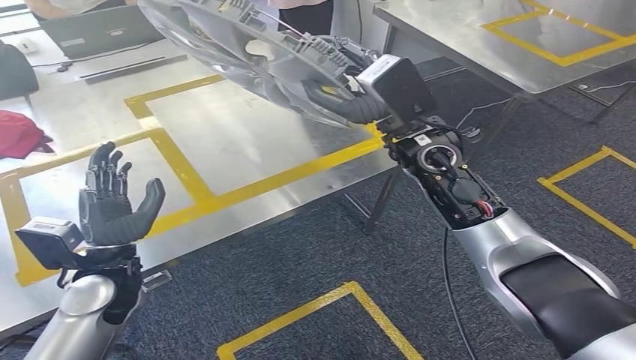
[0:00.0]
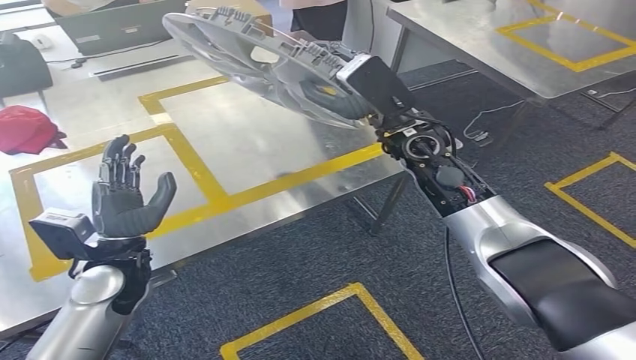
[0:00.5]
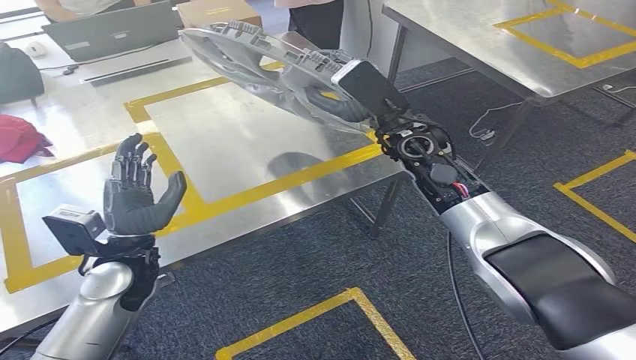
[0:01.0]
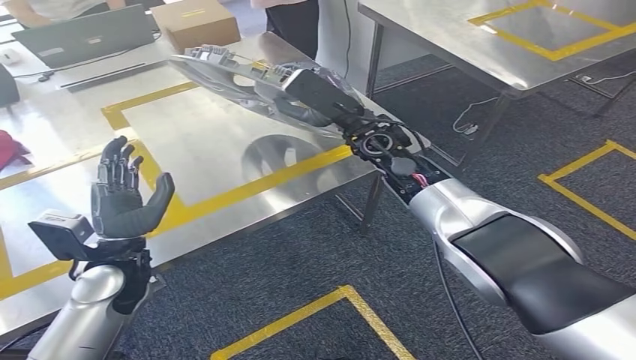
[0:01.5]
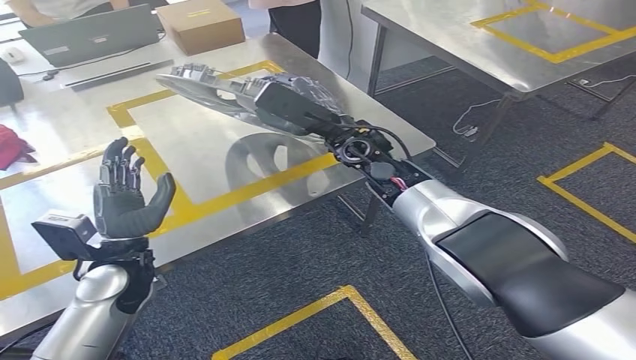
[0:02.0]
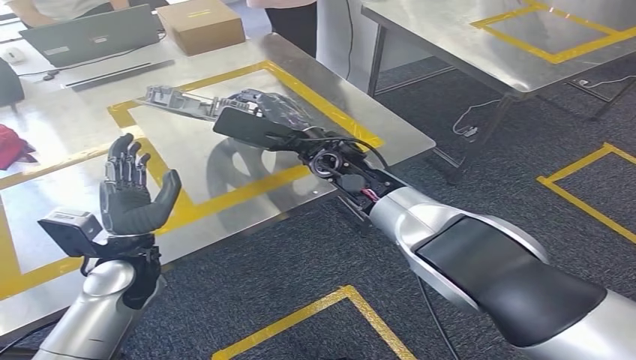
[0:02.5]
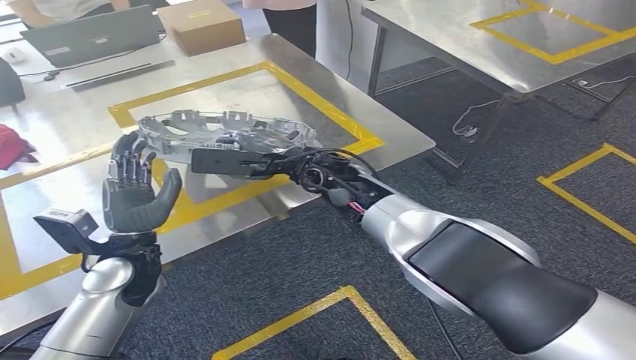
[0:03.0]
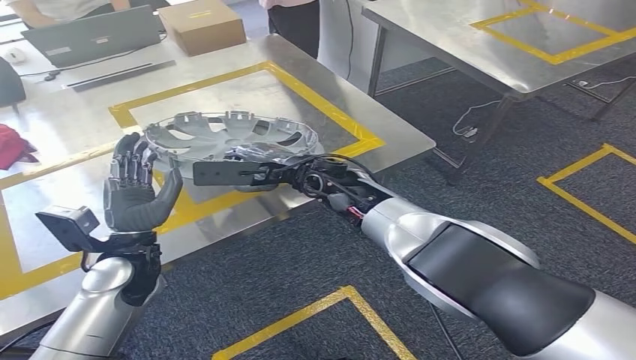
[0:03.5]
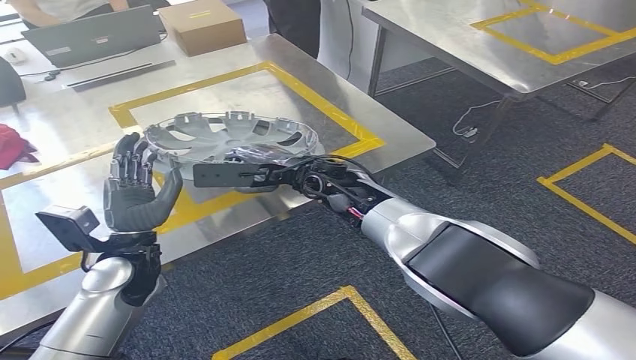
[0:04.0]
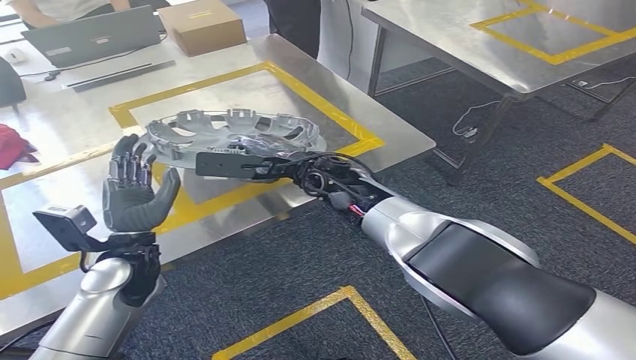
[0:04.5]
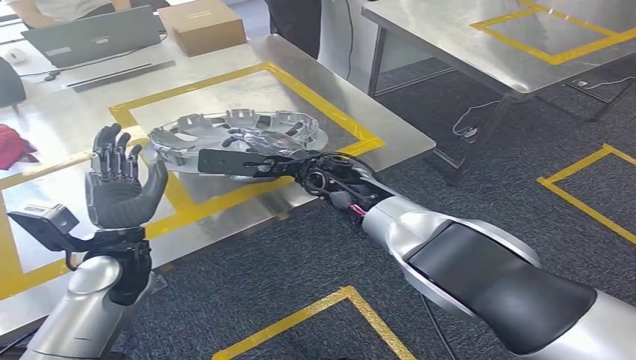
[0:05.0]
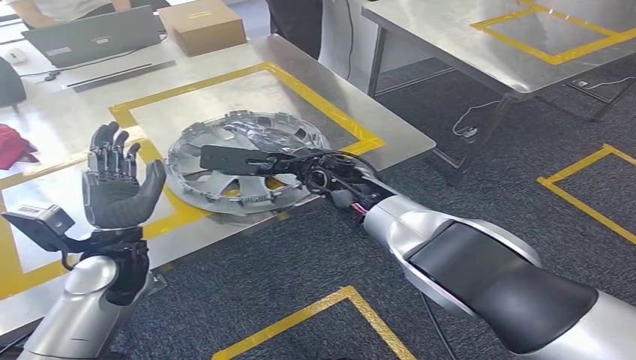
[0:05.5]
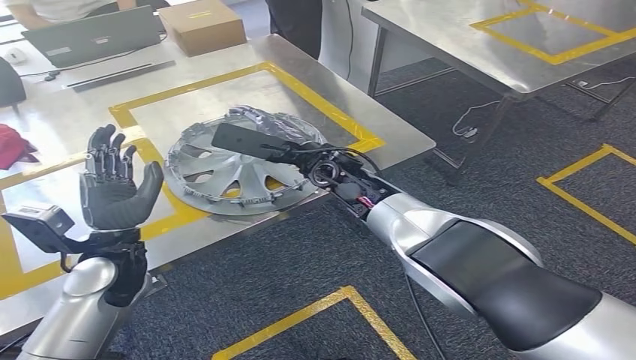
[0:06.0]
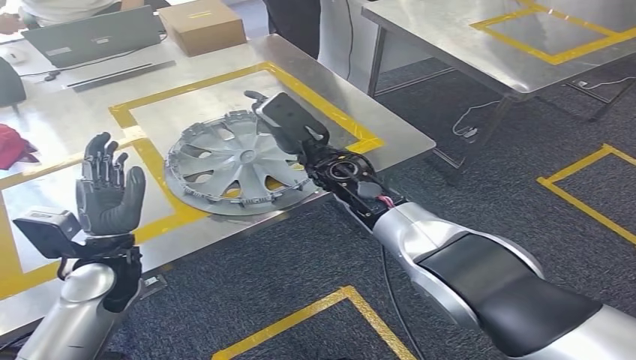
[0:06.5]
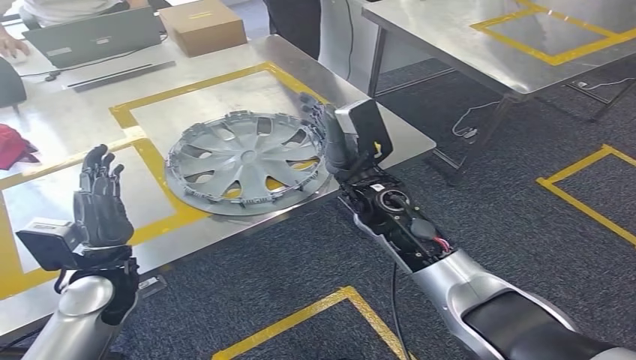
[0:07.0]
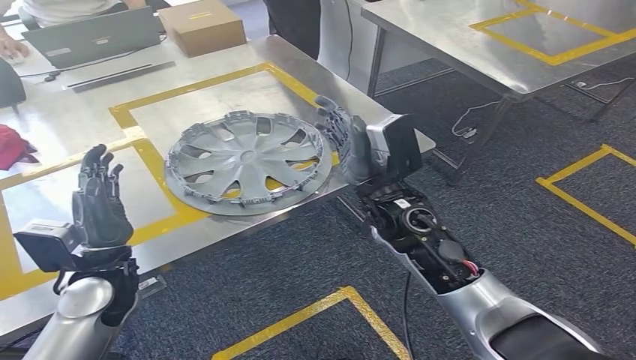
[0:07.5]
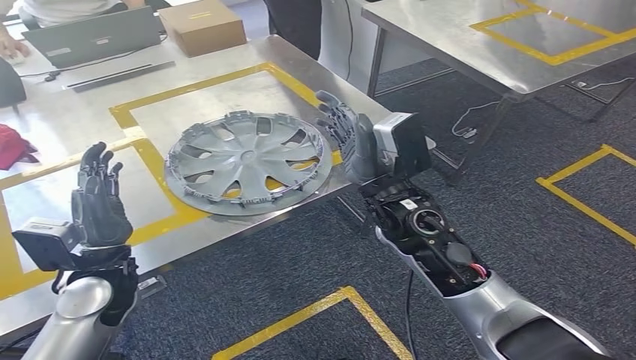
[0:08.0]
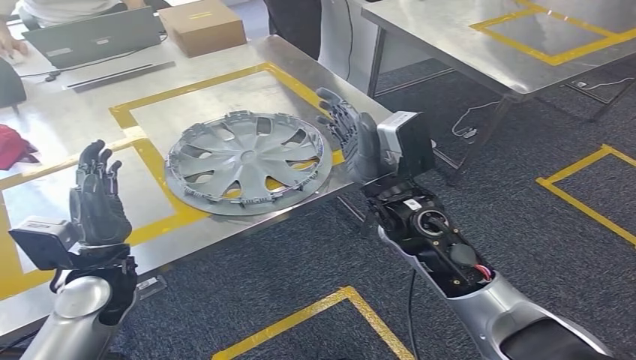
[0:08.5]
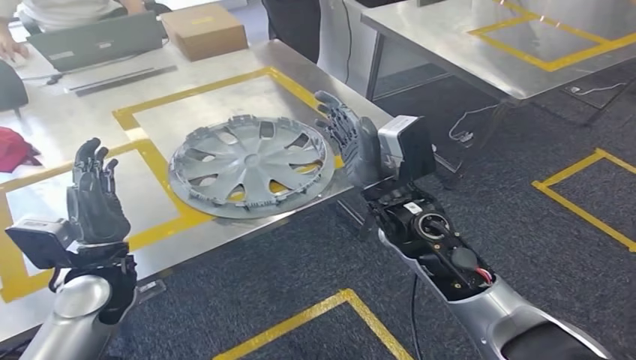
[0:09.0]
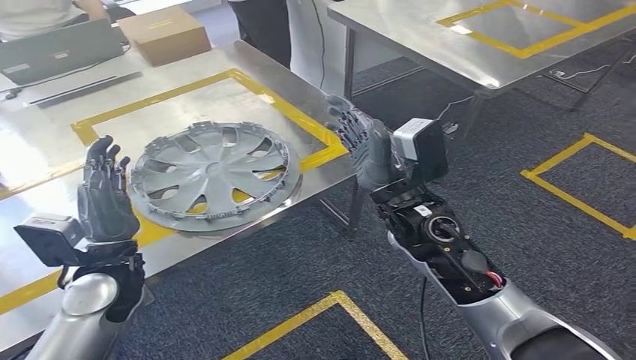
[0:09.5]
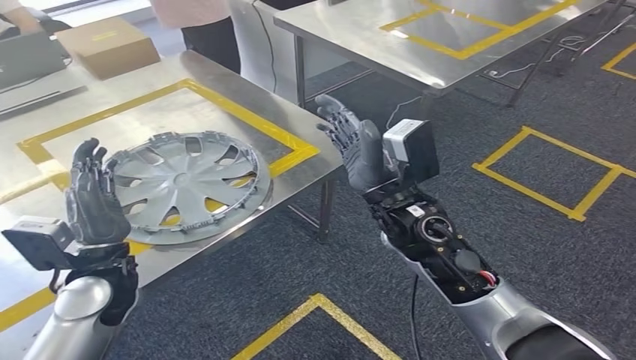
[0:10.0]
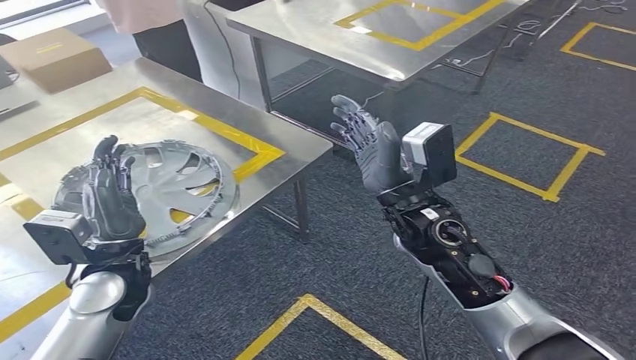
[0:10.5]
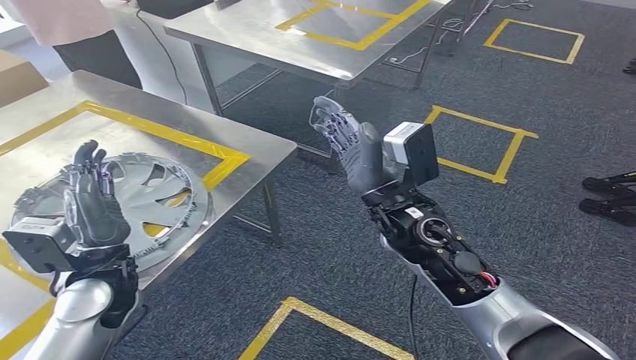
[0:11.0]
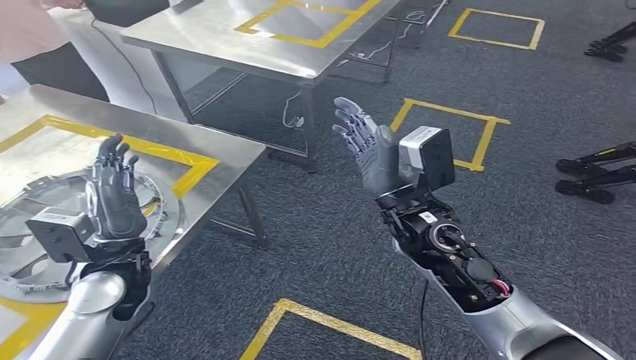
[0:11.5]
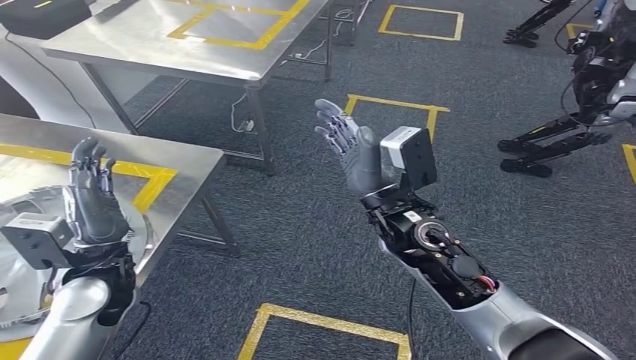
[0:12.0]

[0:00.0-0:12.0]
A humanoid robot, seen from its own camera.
Step, 0:01.5 to 0:07.0: Insert the small parts into the corresponding holes on the workbench.
0:06.0 to 0:08.0: The right hand travels backward by roughly 10 cm.

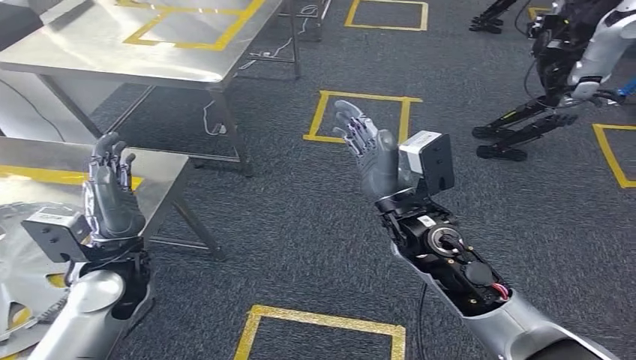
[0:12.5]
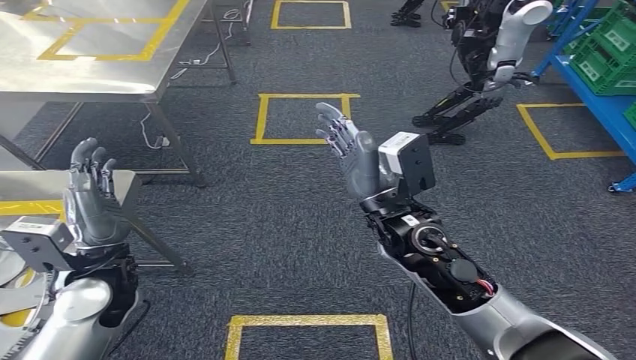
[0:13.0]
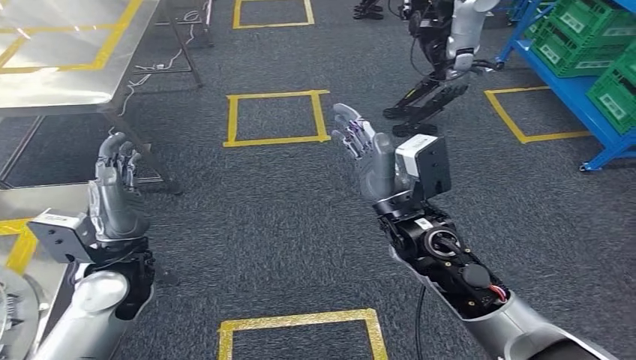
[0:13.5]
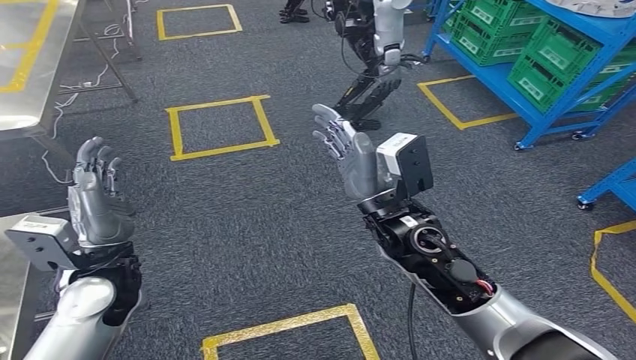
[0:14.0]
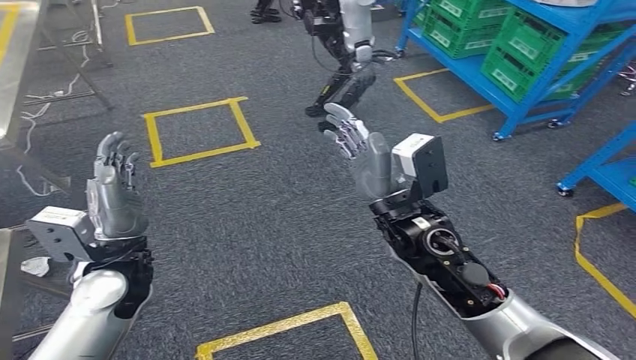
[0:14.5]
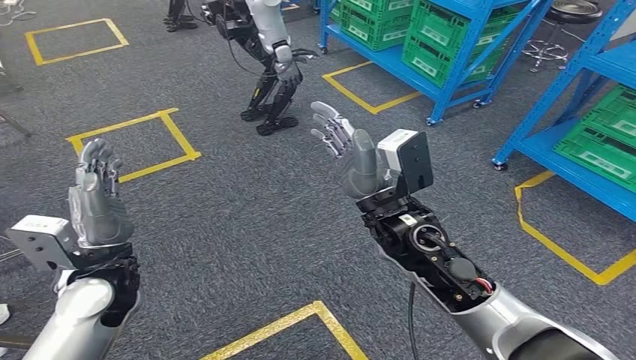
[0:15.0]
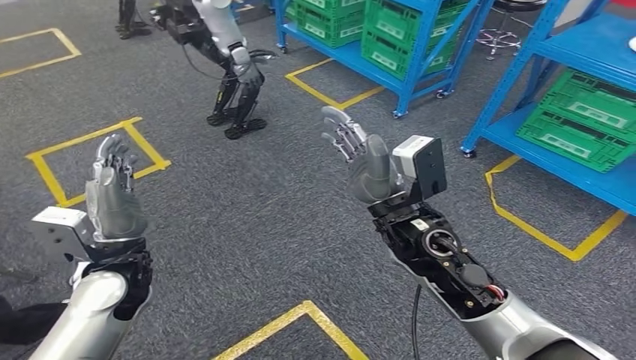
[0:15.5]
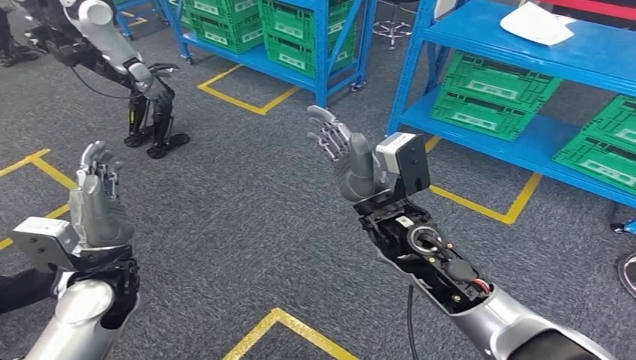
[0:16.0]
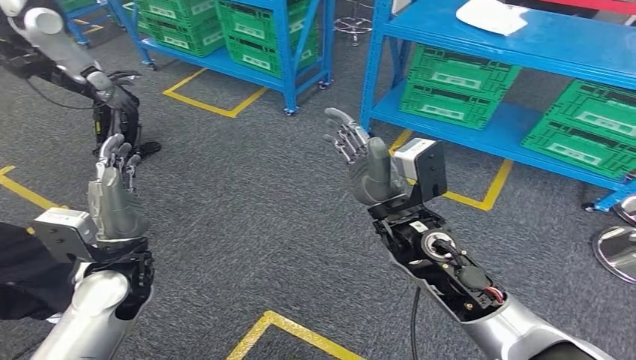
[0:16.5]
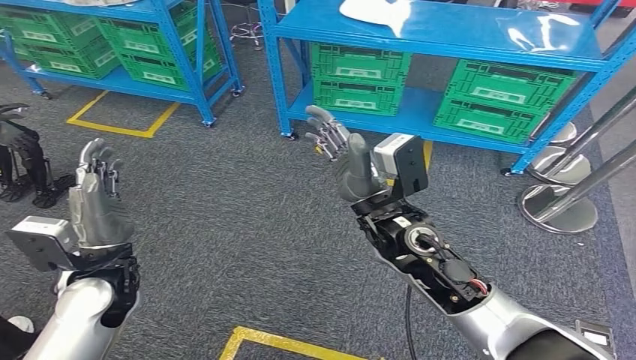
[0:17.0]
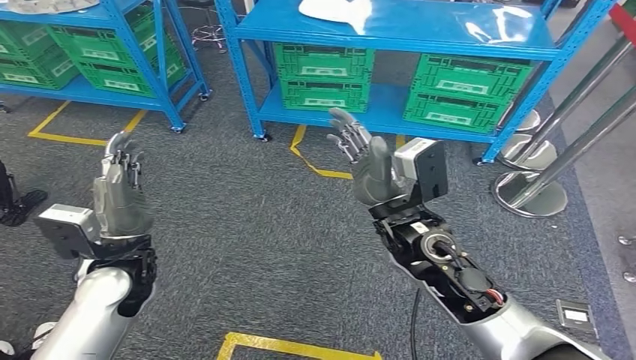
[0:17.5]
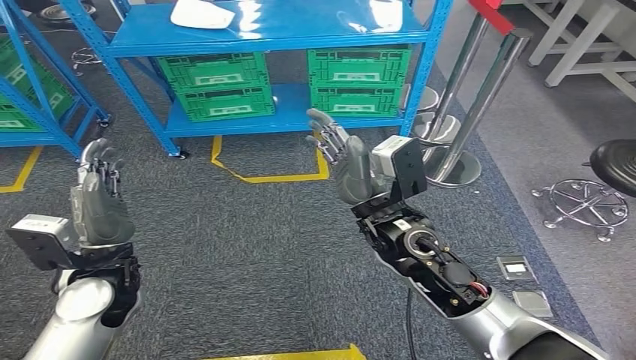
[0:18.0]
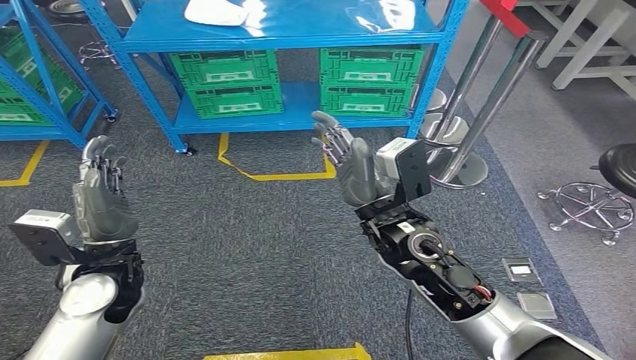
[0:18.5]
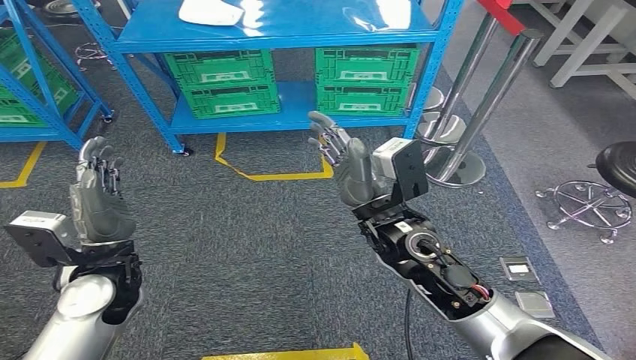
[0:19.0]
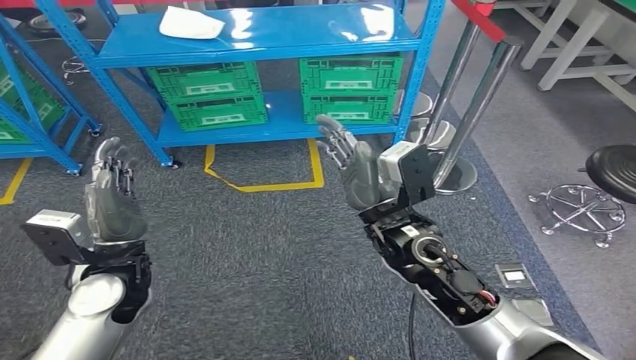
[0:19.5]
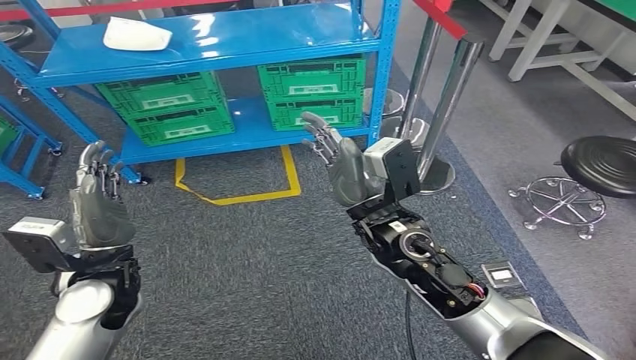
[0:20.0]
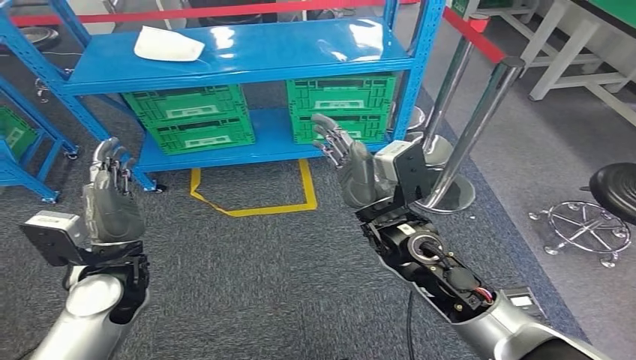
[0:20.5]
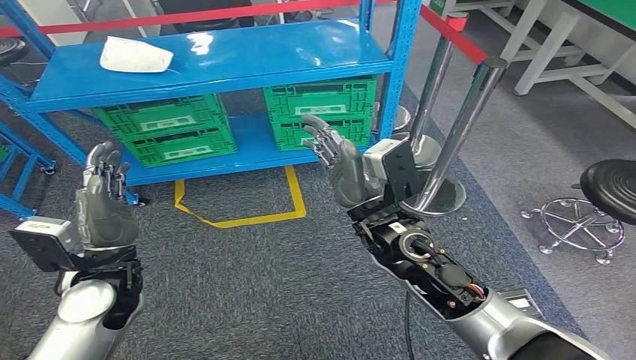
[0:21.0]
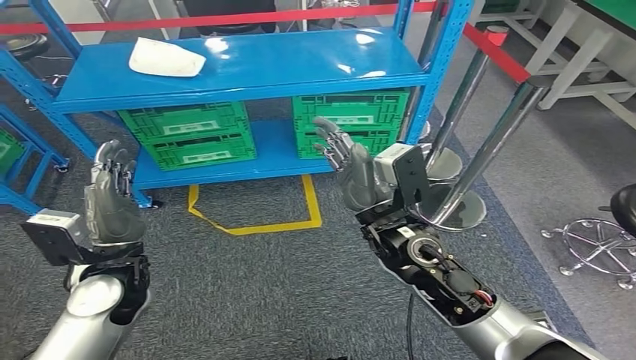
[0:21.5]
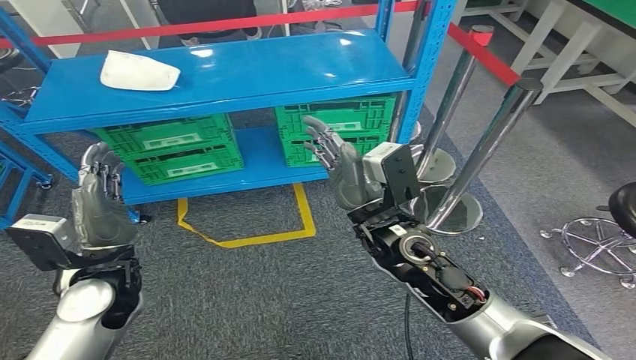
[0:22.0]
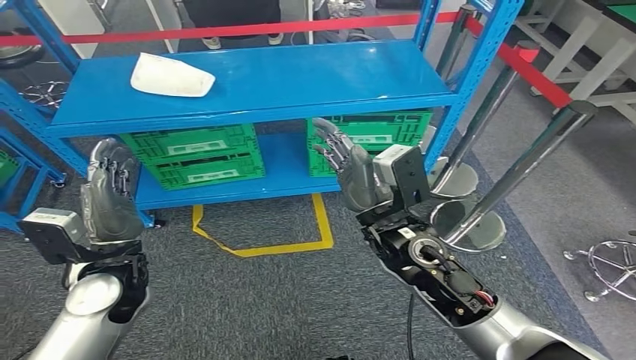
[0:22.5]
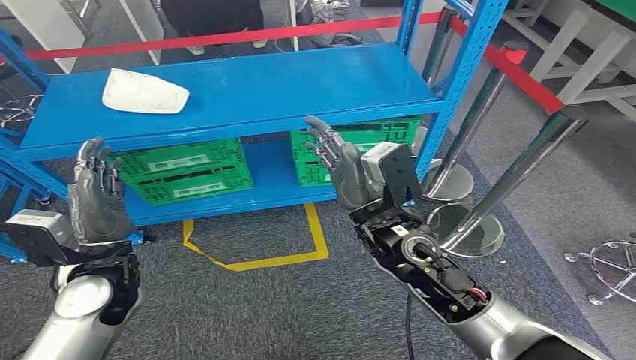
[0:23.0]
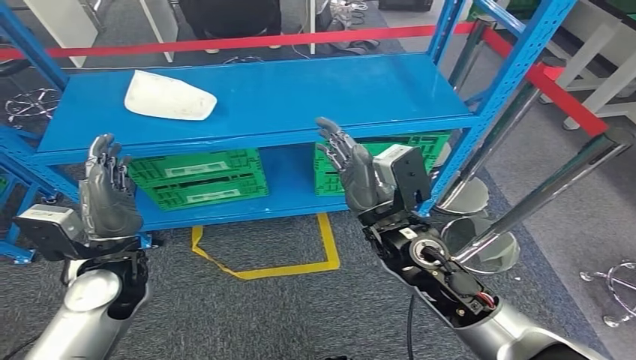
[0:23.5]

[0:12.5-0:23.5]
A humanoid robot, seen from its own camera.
Step, 0:12.5 to 0:23.5: Move to the initial position at the workbench.
